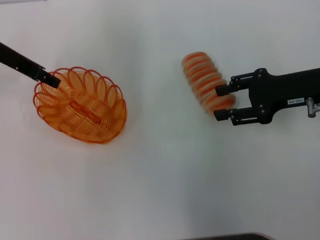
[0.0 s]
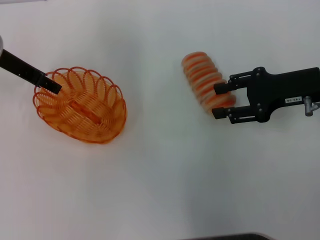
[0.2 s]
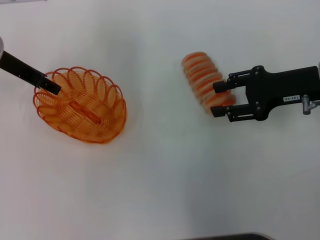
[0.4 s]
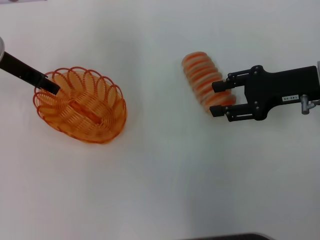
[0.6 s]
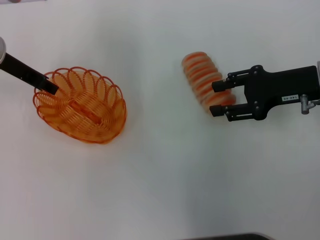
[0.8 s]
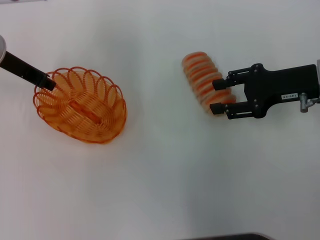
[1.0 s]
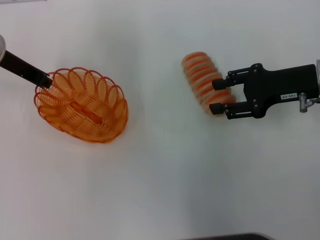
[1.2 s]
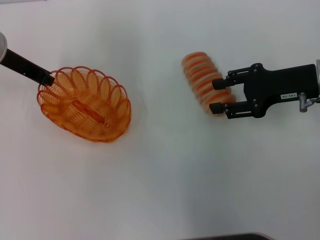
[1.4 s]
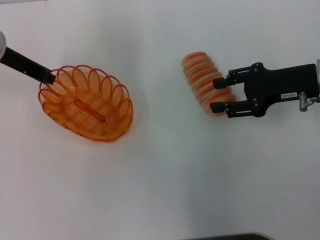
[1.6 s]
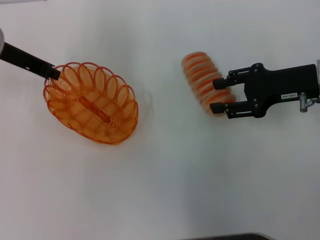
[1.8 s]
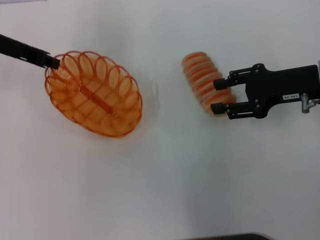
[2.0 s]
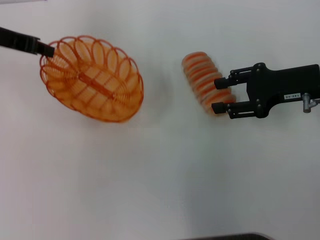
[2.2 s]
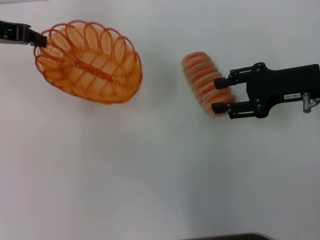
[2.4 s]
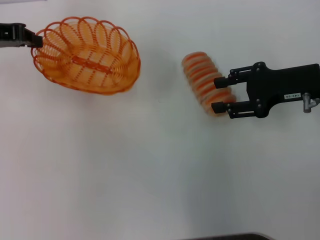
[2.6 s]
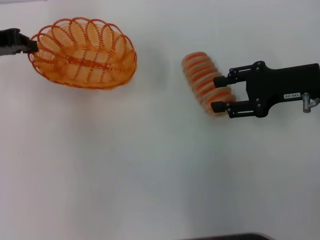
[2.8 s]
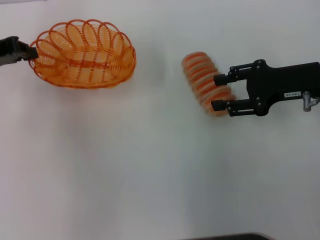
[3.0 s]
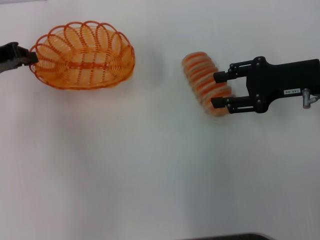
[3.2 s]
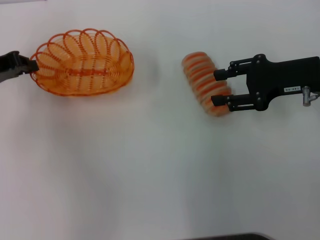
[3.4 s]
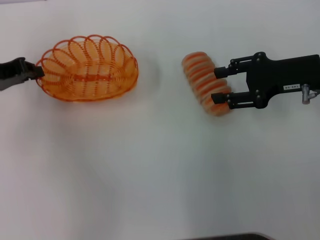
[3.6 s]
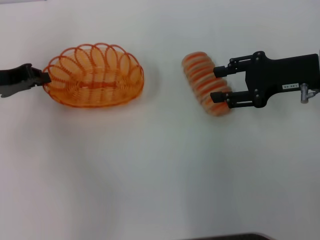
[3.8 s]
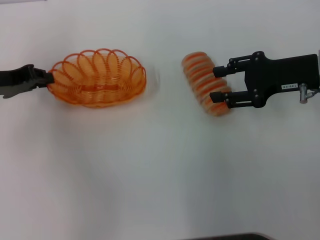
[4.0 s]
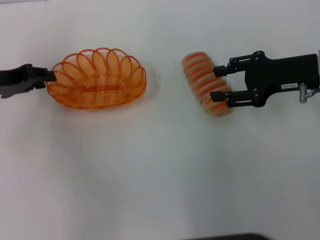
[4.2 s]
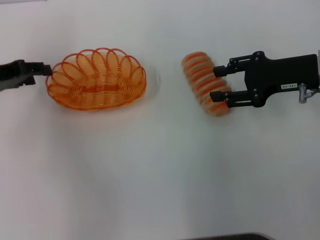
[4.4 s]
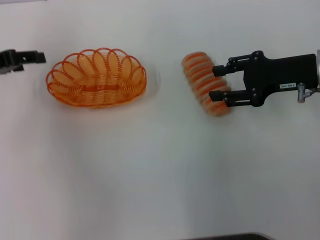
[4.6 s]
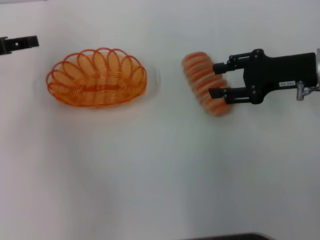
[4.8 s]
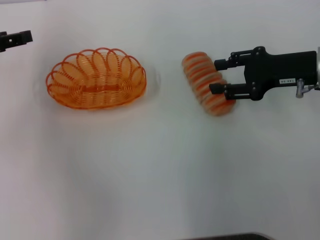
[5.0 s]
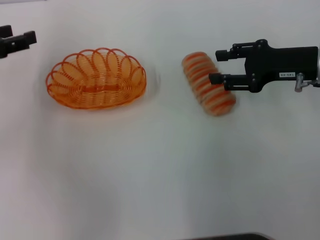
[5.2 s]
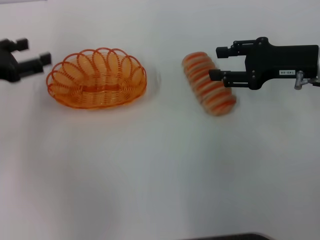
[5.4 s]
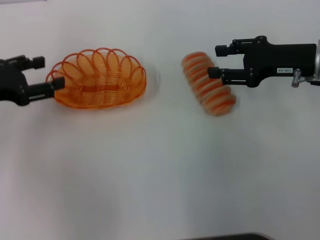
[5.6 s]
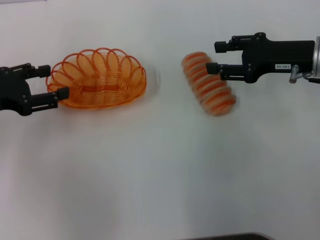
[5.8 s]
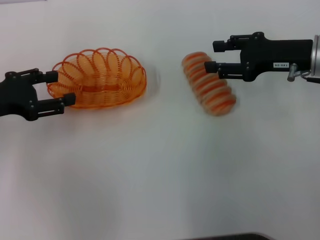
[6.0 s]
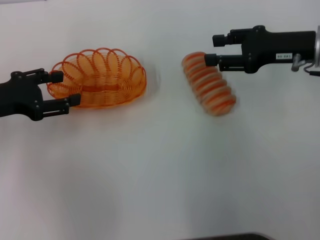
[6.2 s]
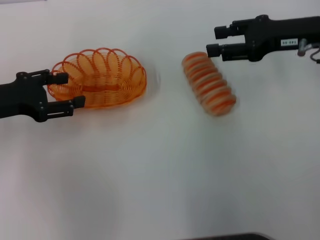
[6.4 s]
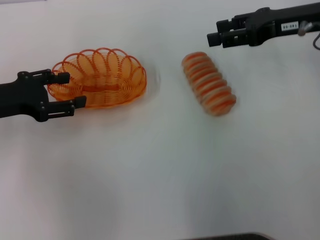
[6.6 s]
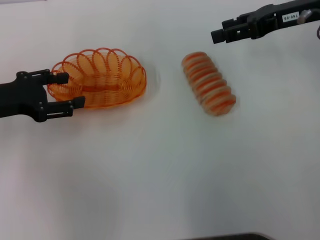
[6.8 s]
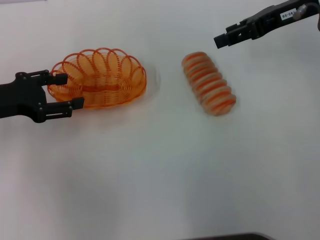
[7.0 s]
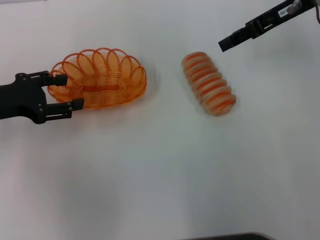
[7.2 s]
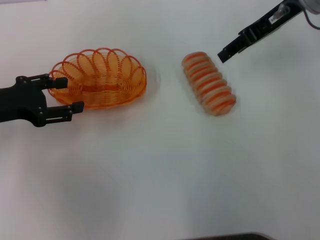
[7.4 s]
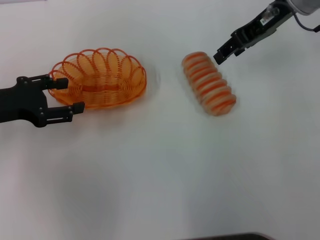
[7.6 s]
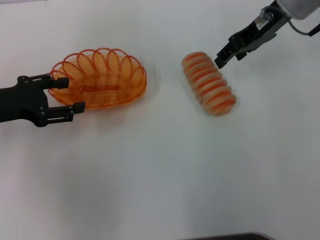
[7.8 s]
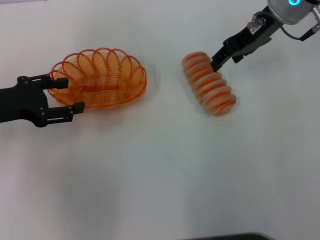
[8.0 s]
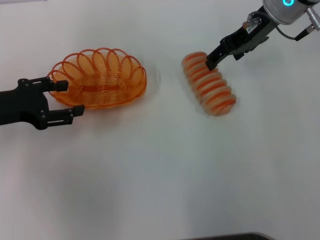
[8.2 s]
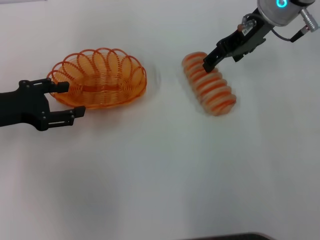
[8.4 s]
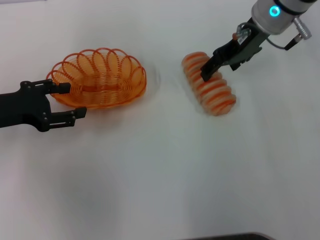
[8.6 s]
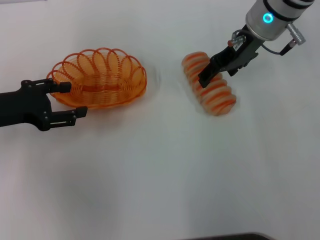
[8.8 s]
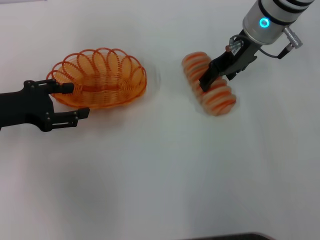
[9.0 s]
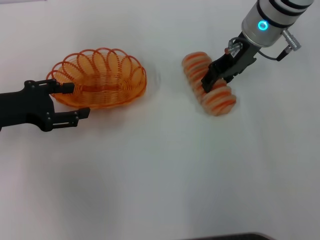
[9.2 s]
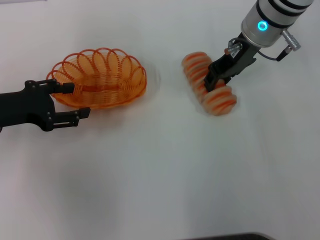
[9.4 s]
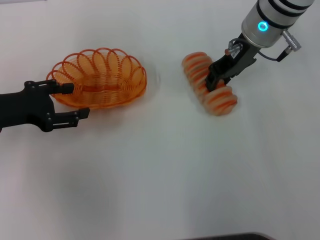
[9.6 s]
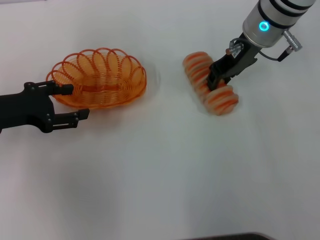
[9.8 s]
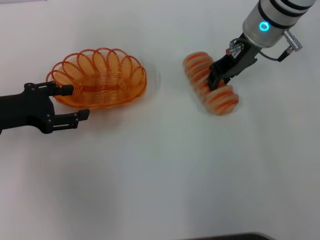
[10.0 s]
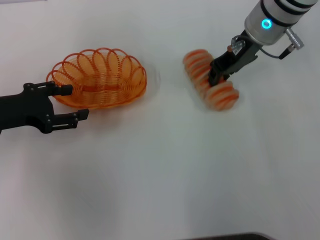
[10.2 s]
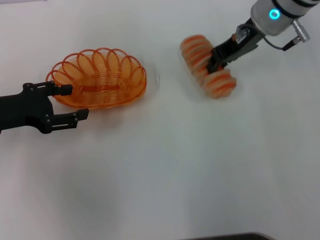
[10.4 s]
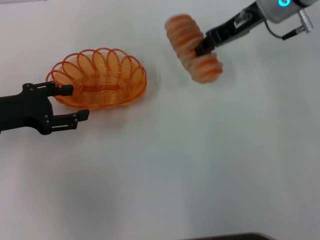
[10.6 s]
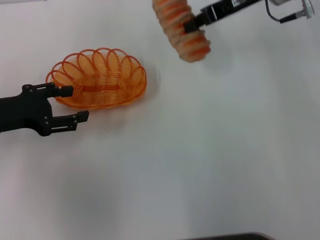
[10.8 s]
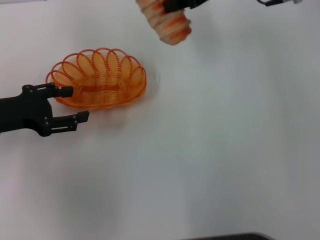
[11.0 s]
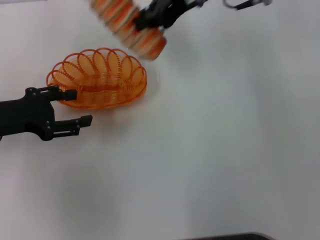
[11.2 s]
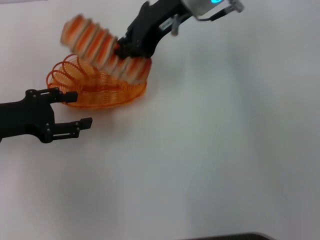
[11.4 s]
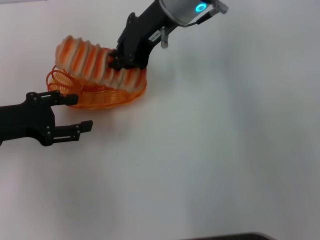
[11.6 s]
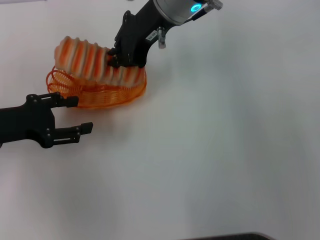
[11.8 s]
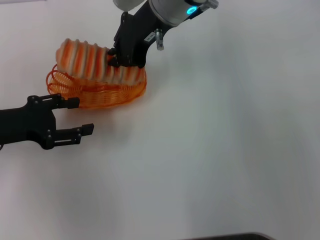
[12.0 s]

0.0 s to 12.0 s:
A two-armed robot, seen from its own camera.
Step, 0.0 to 2.6 s: Pick up the basket with the left gripper.
Step, 2.8 to 5.4 s: Place the basket in the center of view with the left gripper.
Step, 5.6 to 10.6 s: Pick up the long bread with the right gripper.
0.0 to 1.6 s: The left gripper closes.
1.6 to 3.0 s: The left gripper travels to the left by some 5 cm.
3.0 to 4.4 s: The left gripper opens its fingers.
4.4 to 6.0 s: The left gripper opens up.
6.0 to 7.6 s: The right gripper is displaced upward, forward and to the left by approximately 15 cm.
7.6 to 9.0 s: The right gripper shifts by approximately 5 cm.
9.0 to 10.4 s: The right gripper closes its fingers.
10.4 to 12.0 s: The right gripper shifts some 15 cm to the left.

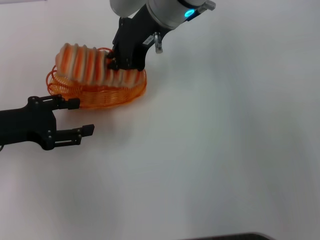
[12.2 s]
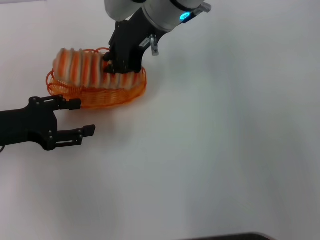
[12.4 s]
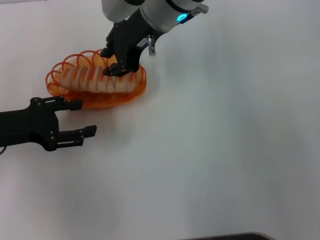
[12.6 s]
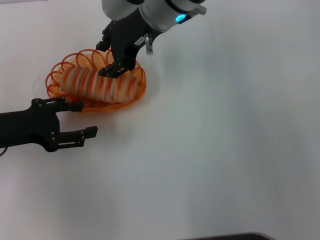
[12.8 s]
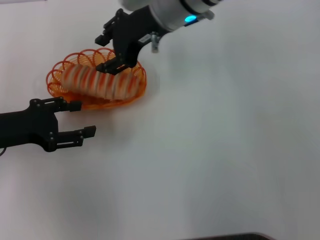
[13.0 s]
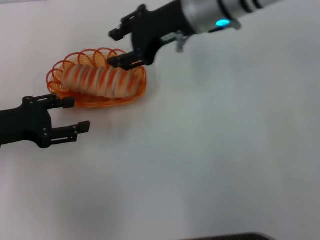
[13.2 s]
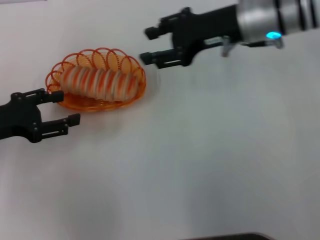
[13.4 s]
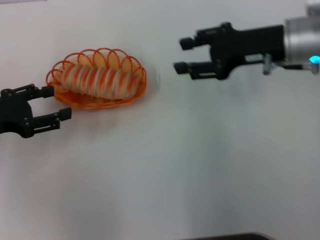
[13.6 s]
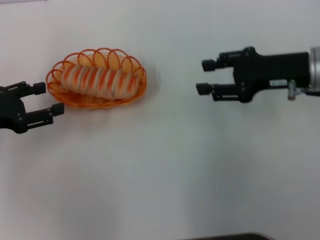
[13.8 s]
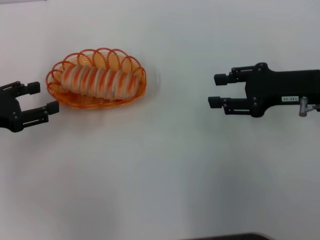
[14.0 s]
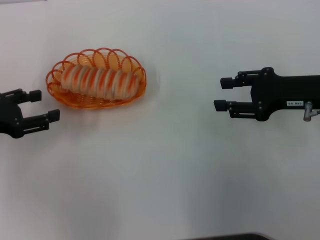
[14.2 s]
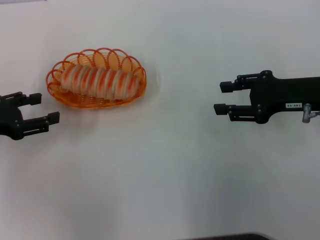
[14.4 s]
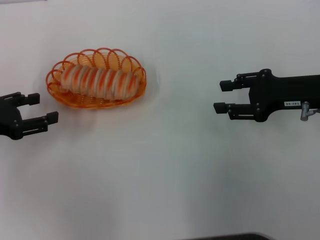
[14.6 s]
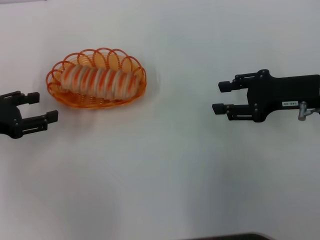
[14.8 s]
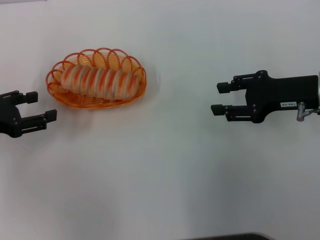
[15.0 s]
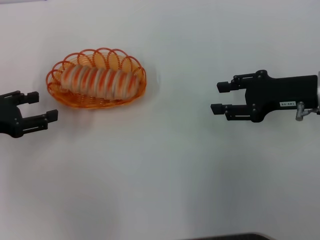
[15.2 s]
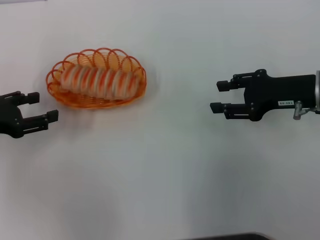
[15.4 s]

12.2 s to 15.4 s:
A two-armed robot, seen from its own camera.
12.2 to 13.8 s: The right gripper shifts about 25 cm to the right and backward, and opens up.
13.8 to 15.4 s: The grippers stay close to where they were, moving slightly.
